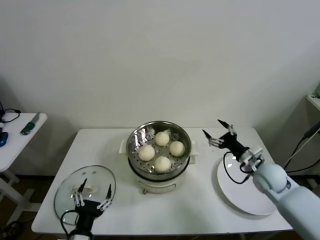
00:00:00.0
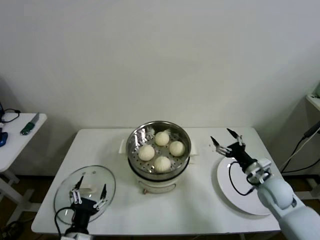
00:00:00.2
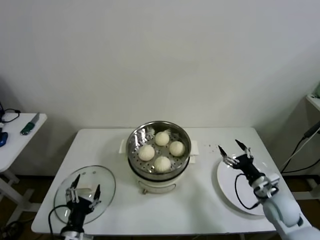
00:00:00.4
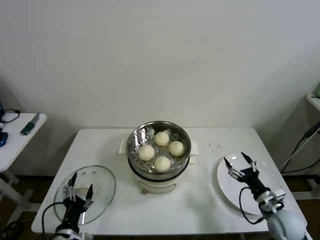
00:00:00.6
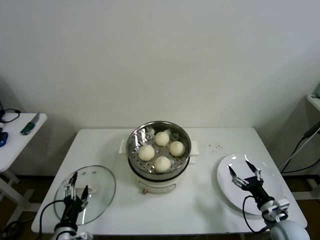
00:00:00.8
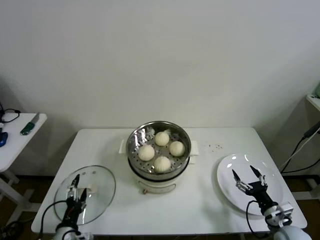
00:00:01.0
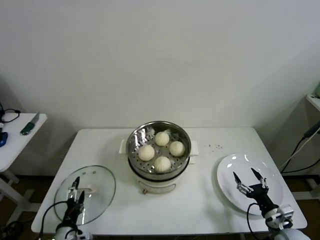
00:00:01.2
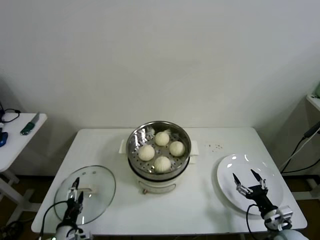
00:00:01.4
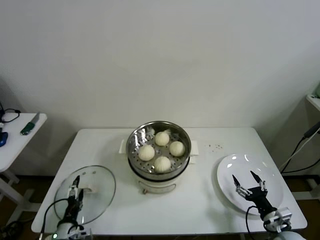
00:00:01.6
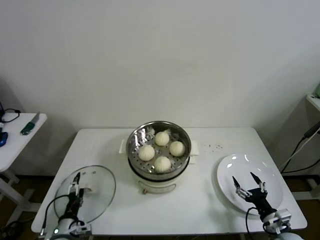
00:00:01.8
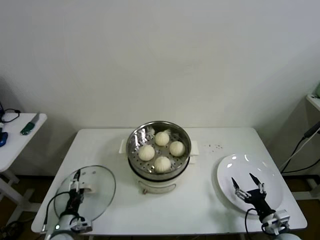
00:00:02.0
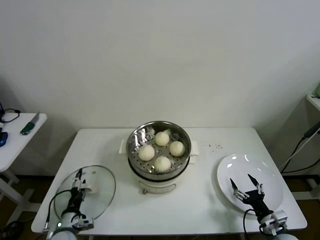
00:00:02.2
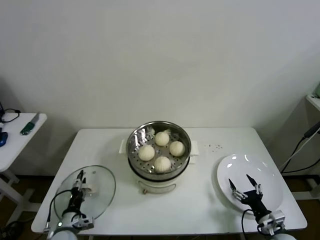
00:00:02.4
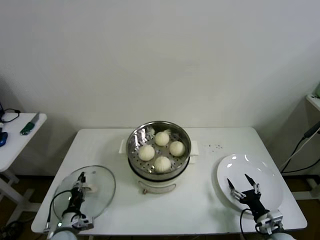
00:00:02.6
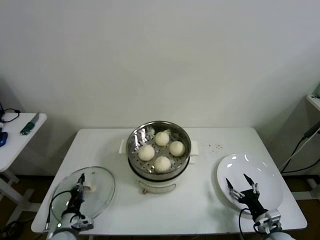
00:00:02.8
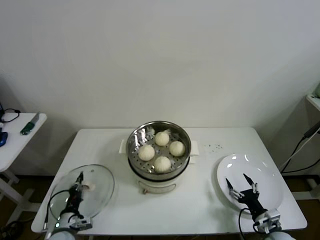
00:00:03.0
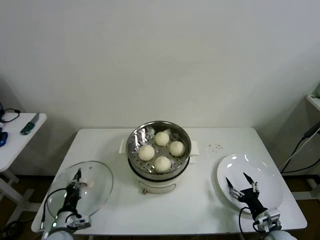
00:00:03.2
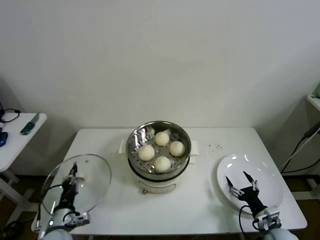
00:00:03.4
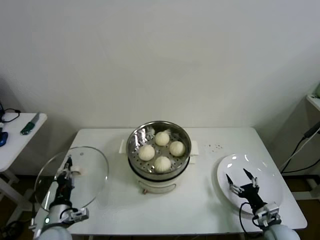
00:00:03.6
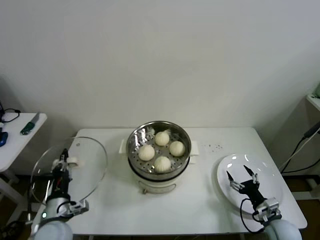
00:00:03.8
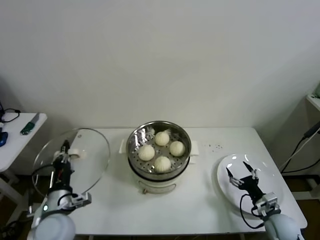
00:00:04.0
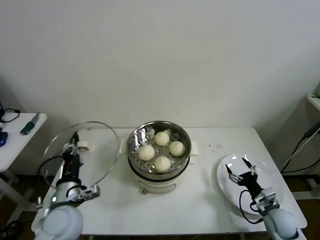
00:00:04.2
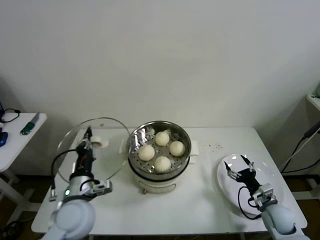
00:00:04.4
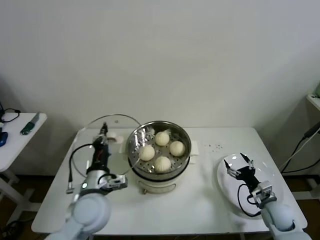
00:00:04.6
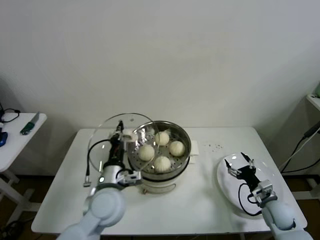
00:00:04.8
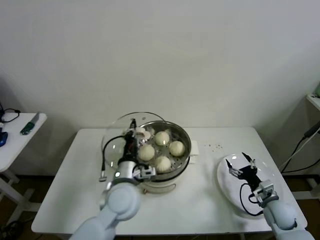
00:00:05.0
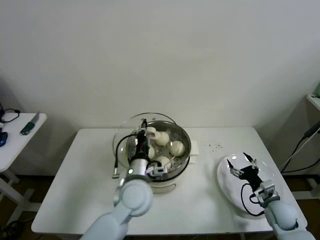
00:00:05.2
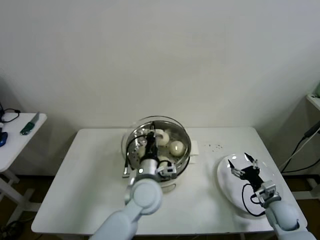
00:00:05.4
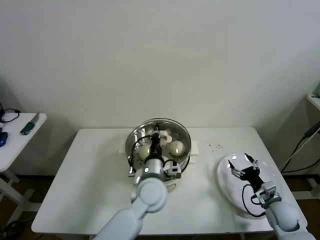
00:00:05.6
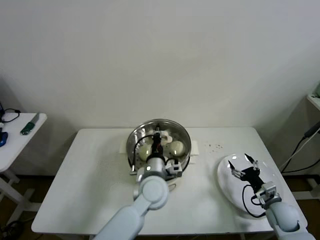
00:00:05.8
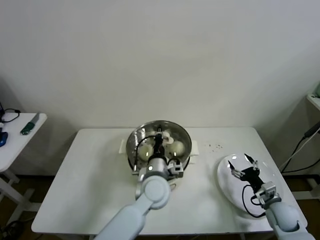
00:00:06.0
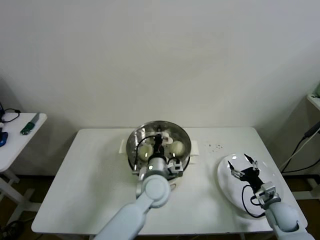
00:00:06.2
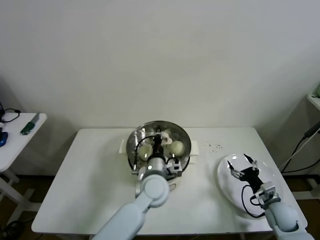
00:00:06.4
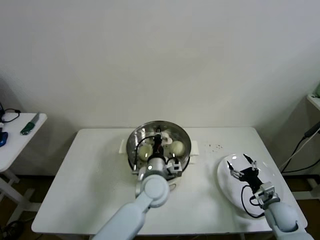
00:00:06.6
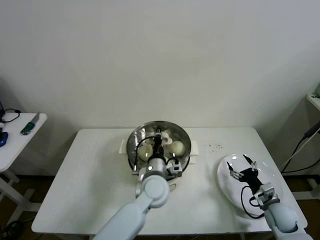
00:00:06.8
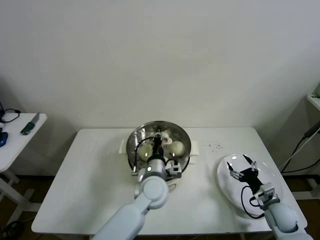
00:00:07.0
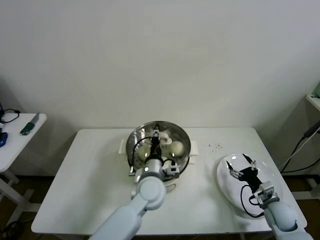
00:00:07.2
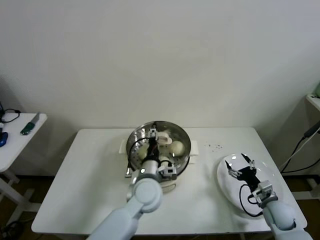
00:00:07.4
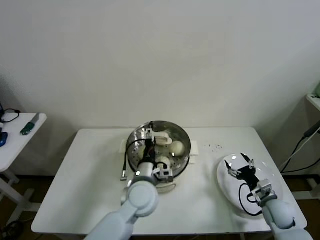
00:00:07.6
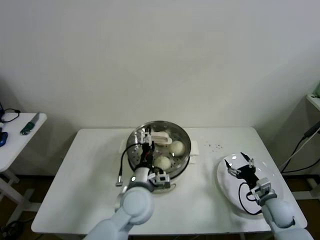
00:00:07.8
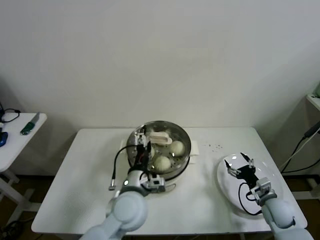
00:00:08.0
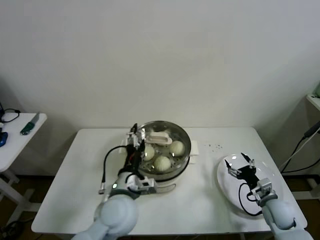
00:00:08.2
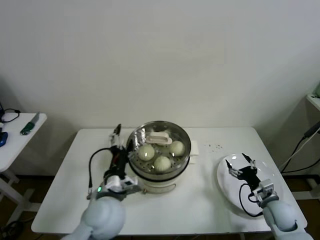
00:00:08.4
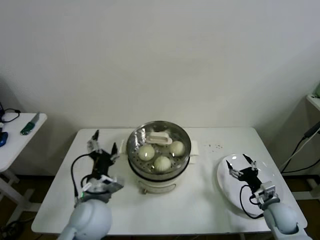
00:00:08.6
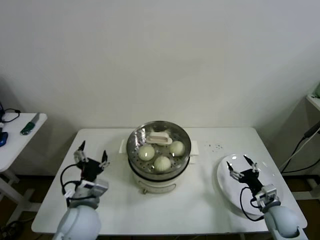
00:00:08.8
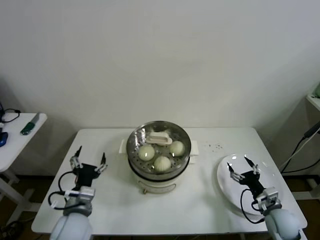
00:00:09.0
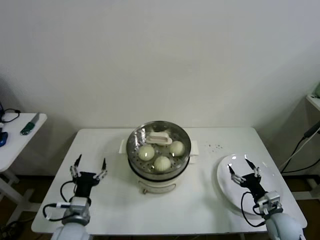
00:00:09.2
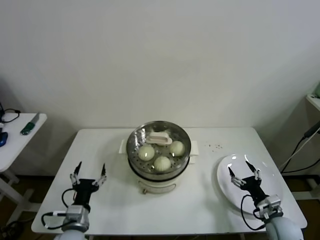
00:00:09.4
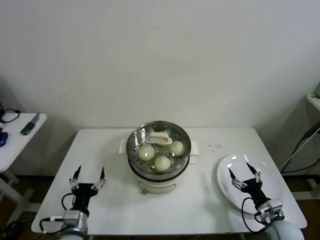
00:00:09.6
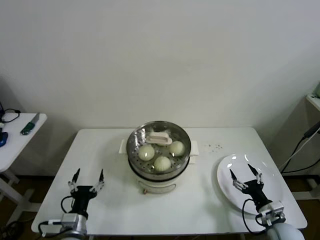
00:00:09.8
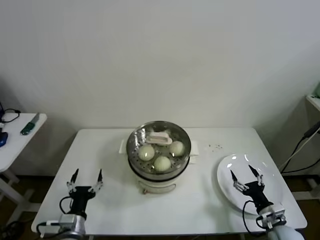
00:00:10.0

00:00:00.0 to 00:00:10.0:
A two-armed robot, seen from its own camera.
Step, 00:00:00.0 to 00:00:02.8: Grasp the pot lid with left gripper.
Step, 00:00:03.0 to 00:00:07.2: Place the pot lid on the steamer with left gripper.
00:00:00.0 to 00:00:01.4: The left gripper is displaced to the left and downward by some 10 cm. Meanwhile the right gripper shifts some 20 cm backward and downward.
00:00:01.4 to 00:00:02.8: The left gripper moves forward, approximately 5 cm, and closes up.
00:00:02.8 to 00:00:04.2: The right gripper is displaced forward by some 5 cm, while the left gripper heads upward, covering some 20 cm.
00:00:04.2 to 00:00:05.8: The left gripper heads to the right and forward, covering roughly 25 cm.
00:00:05.8 to 00:00:07.2: There are only small adjustments of the grippers.
00:00:07.2 to 00:00:08.6: The left gripper goes about 15 cm to the left and backward, and opens its fingers.
00:00:08.6 to 00:00:10.0: The right gripper goes about 5 cm backward; the left gripper goes approximately 20 cm downward, to the left and backward.

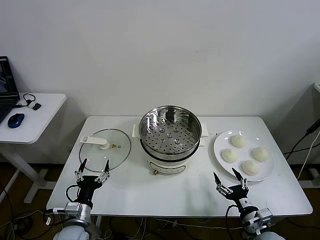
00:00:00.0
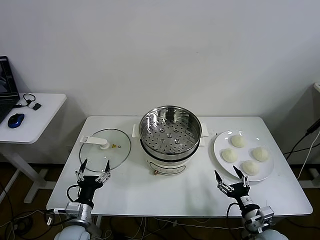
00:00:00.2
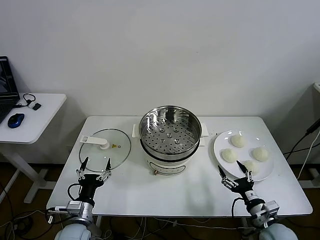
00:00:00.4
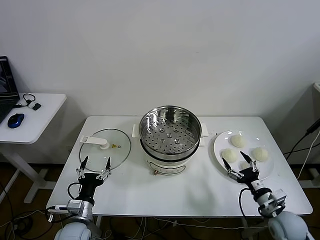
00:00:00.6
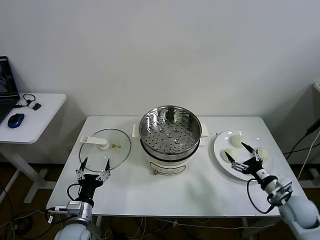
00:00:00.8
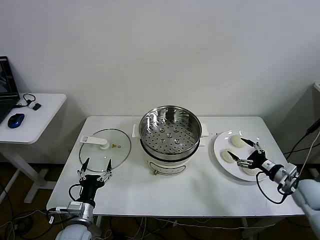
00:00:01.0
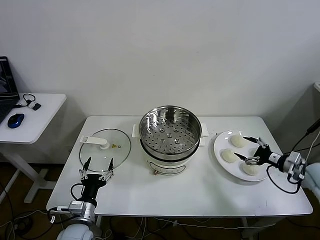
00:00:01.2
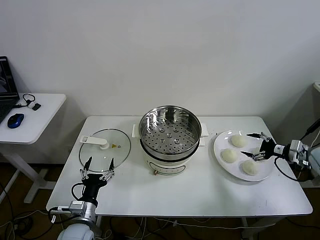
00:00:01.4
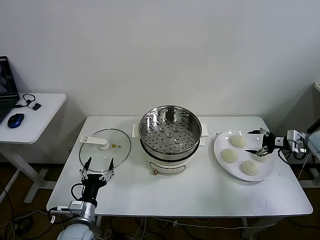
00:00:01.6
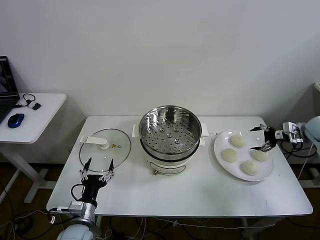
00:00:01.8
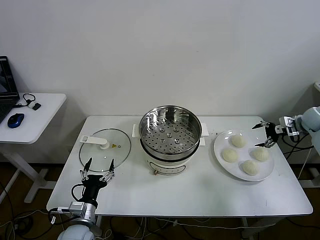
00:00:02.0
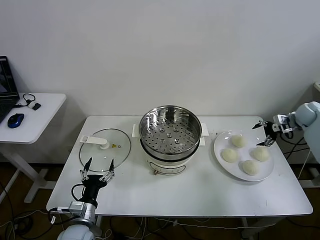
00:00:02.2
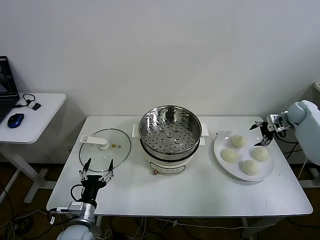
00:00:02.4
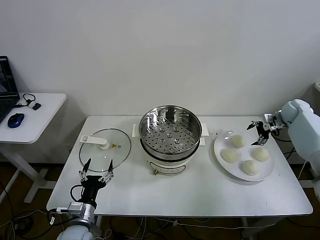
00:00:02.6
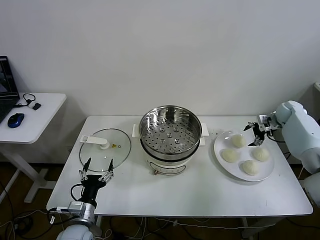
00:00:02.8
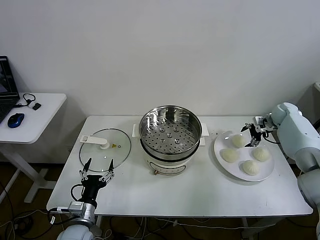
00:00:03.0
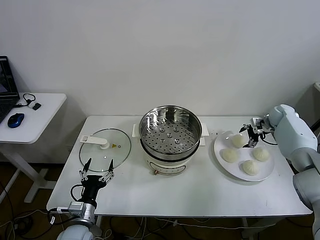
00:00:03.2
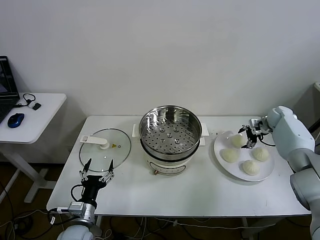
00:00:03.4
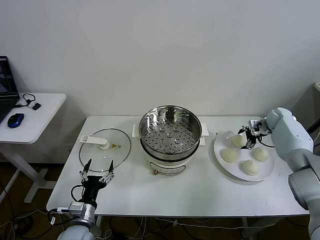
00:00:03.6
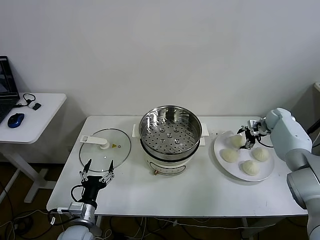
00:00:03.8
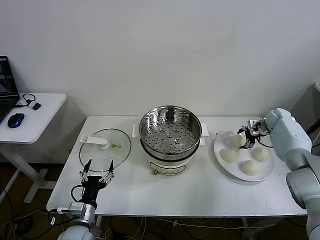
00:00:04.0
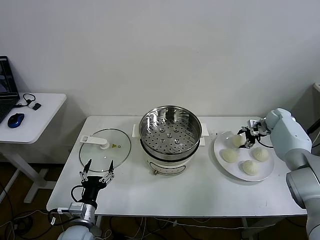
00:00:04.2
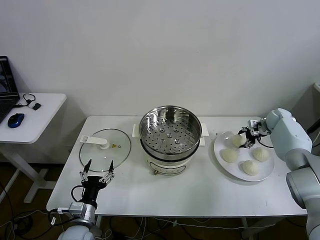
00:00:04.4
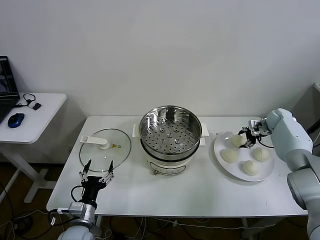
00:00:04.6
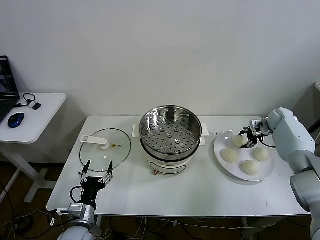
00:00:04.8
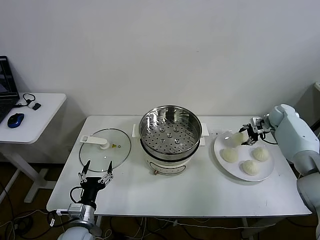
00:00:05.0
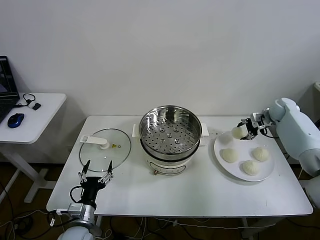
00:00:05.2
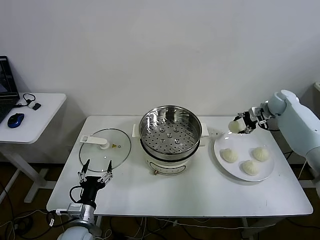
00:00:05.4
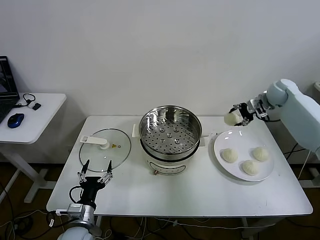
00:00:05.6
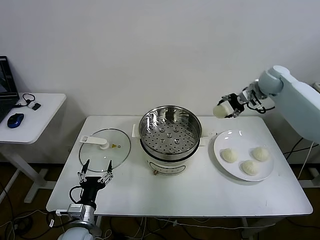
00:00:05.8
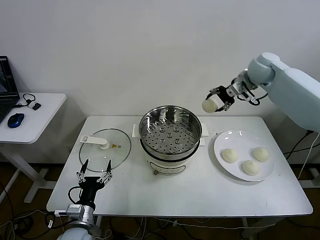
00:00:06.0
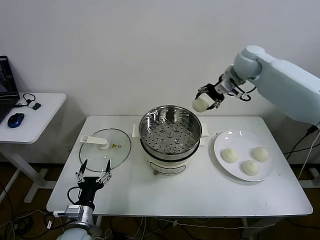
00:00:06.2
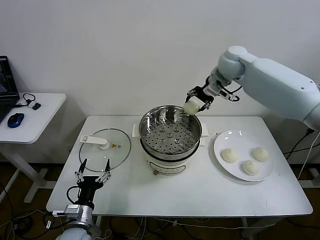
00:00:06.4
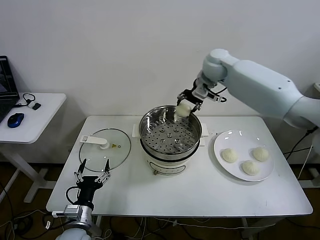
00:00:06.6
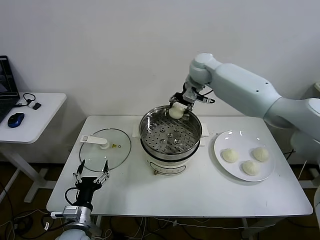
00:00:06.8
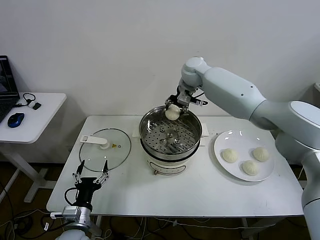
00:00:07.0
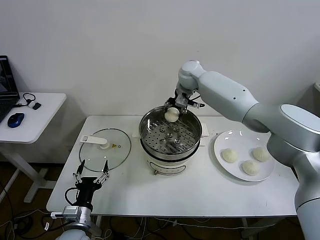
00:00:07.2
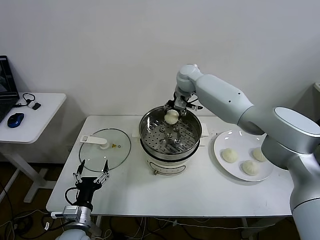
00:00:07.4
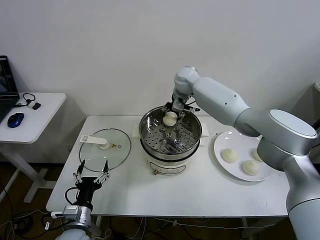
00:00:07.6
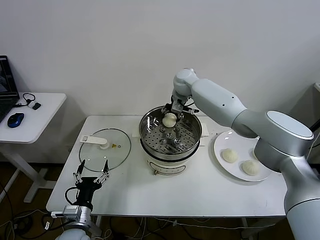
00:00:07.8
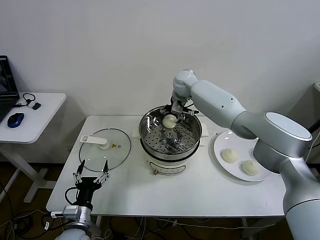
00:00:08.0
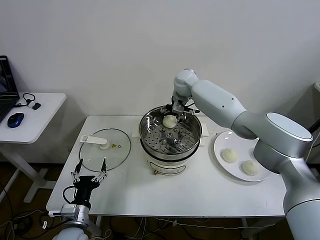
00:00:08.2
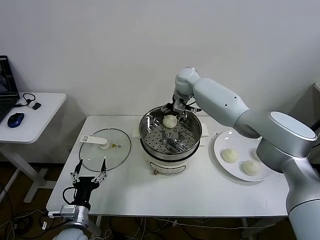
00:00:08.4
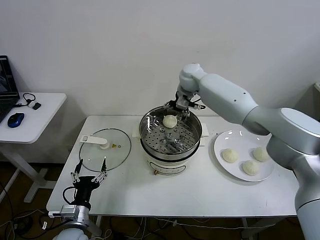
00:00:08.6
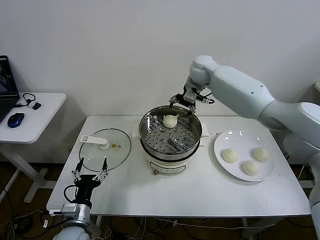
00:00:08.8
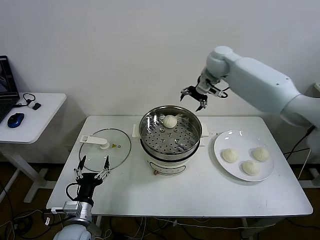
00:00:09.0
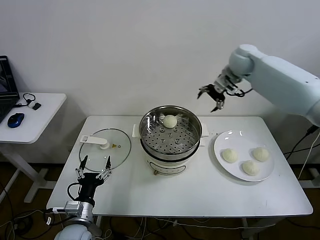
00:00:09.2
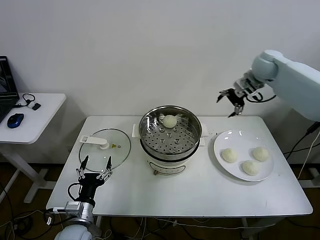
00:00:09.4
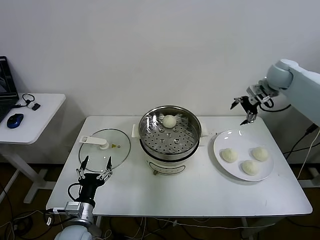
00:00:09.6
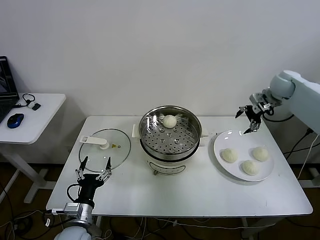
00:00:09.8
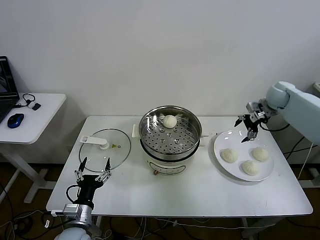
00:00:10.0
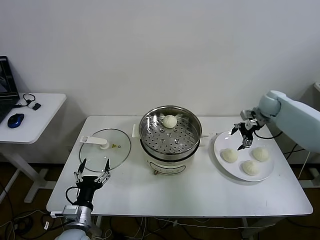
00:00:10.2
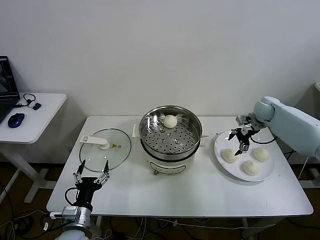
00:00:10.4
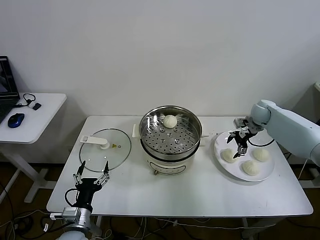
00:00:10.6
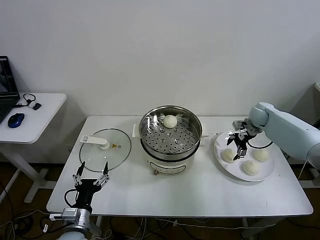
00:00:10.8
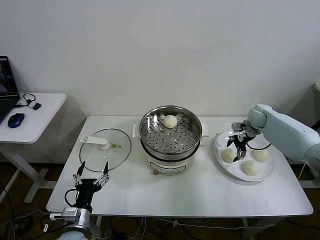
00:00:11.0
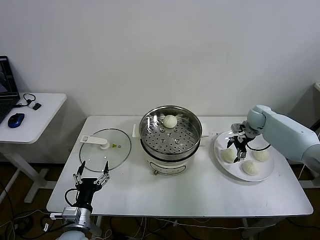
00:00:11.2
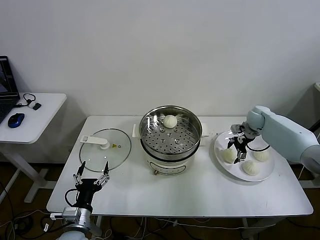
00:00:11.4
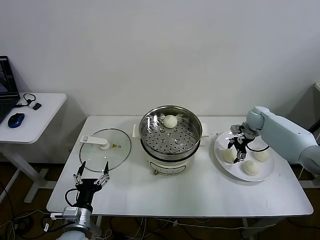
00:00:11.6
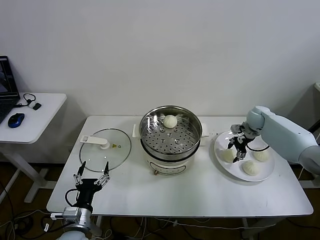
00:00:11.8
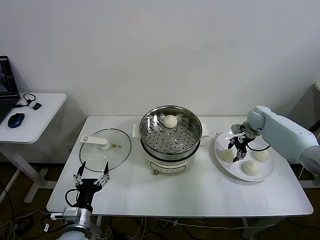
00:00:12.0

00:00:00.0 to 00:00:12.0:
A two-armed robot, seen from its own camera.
Step, 00:00:00.0 to 00:00:04.2: Grasp the baozi in the plate with right gripper.
Step, 00:00:04.4 to 00:00:08.4: Place the baozi on the steamer with right gripper.
Step, 00:00:08.6 to 00:00:11.6: Grasp the baozi in the plate with right gripper.
00:00:01.6 to 00:00:03.0: The right gripper is displaced forward and to the left by about 15 cm.
00:00:03.0 to 00:00:04.4: The right gripper closes up.
00:00:04.4 to 00:00:06.0: The right gripper moves upward and to the left, about 30 cm.
00:00:06.0 to 00:00:07.6: The right gripper heads to the left and downward, covering approximately 25 cm.
00:00:07.6 to 00:00:09.0: The right gripper travels to the right and upward by roughly 15 cm, and opens up.
00:00:09.0 to 00:00:10.4: The right gripper shifts some 25 cm downward and to the right.
00:00:10.4 to 00:00:12.0: The right gripper closes its fingers.
